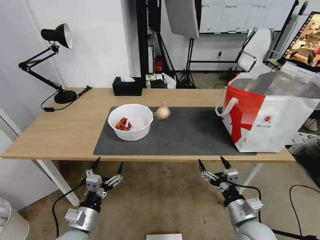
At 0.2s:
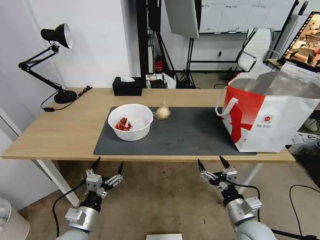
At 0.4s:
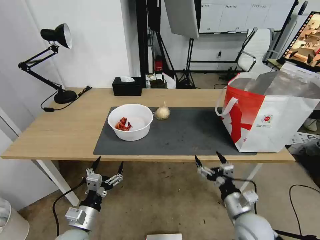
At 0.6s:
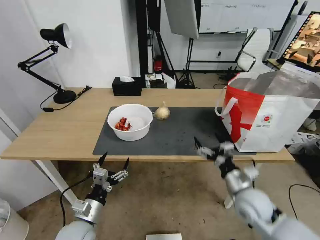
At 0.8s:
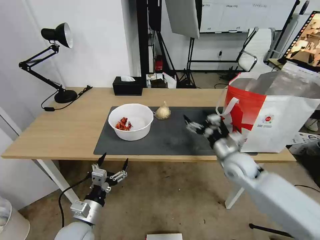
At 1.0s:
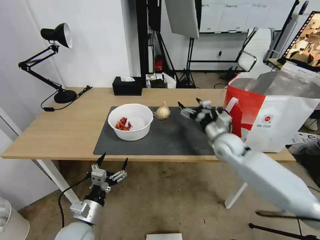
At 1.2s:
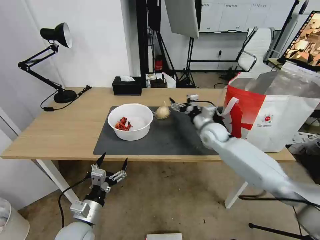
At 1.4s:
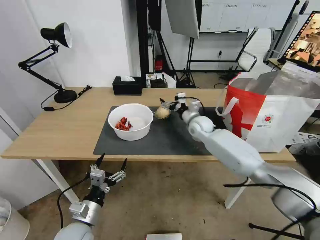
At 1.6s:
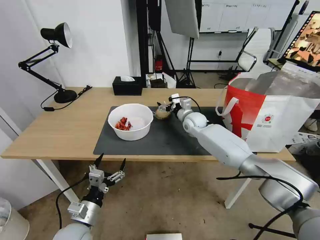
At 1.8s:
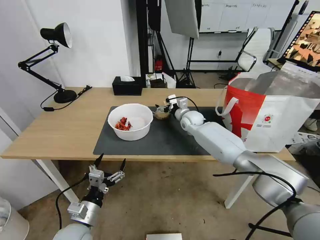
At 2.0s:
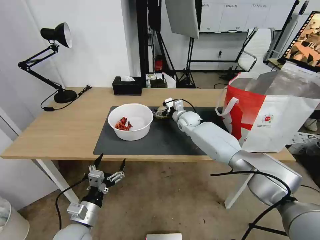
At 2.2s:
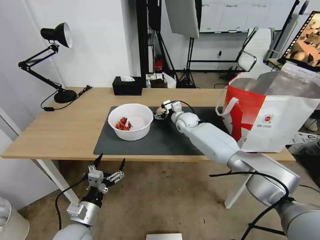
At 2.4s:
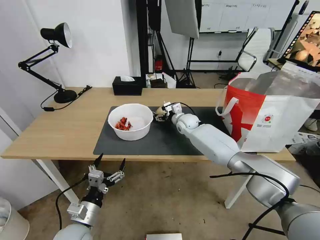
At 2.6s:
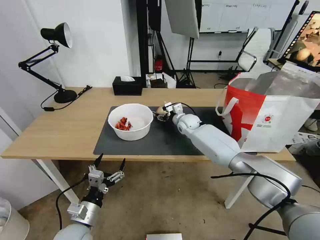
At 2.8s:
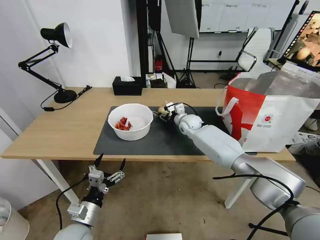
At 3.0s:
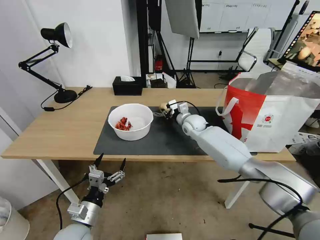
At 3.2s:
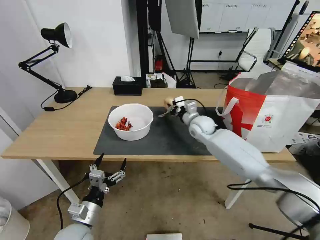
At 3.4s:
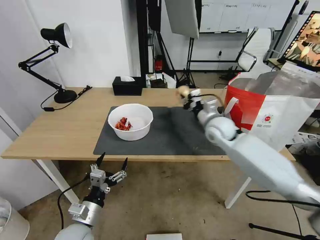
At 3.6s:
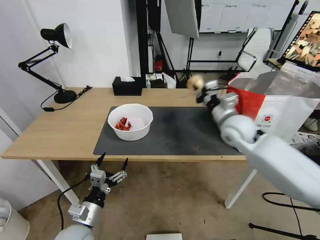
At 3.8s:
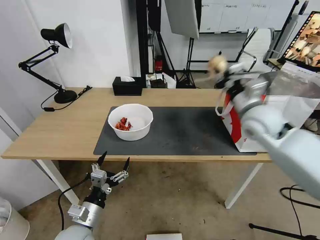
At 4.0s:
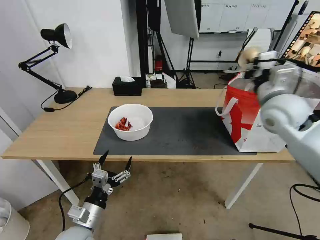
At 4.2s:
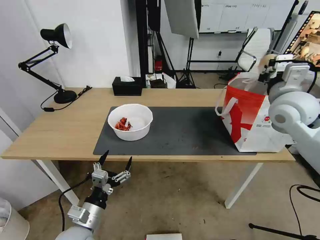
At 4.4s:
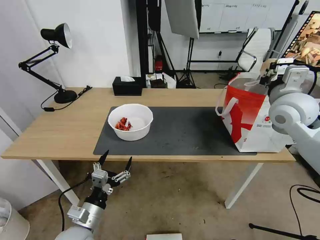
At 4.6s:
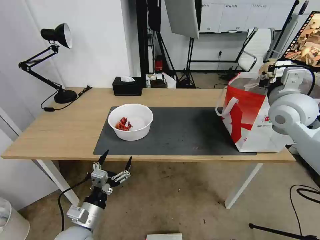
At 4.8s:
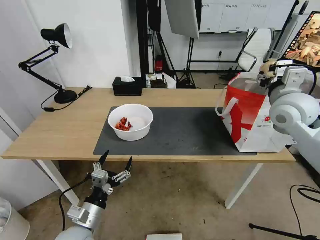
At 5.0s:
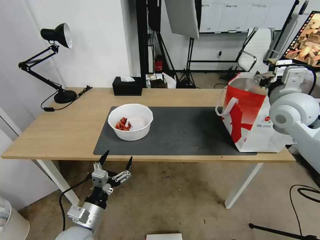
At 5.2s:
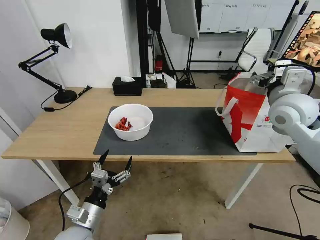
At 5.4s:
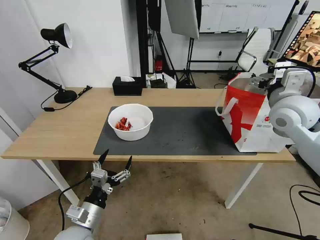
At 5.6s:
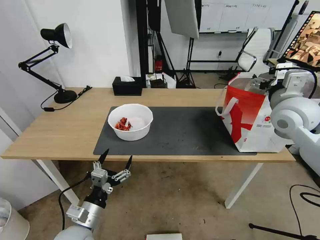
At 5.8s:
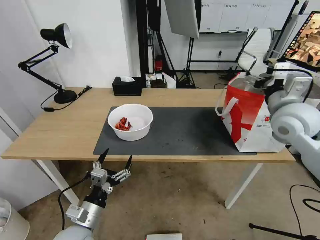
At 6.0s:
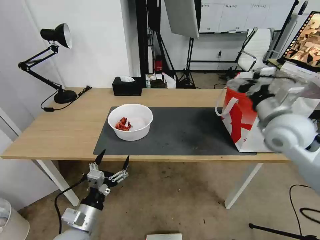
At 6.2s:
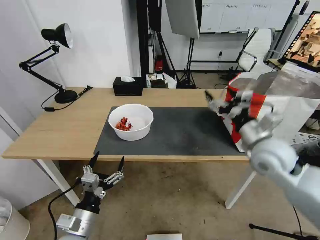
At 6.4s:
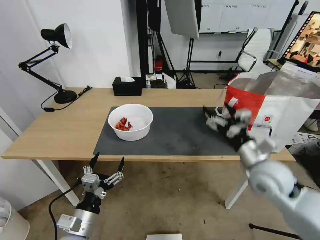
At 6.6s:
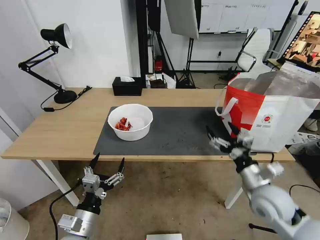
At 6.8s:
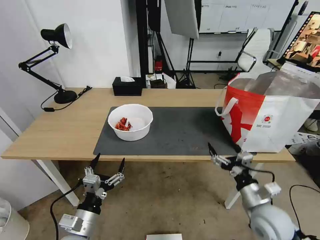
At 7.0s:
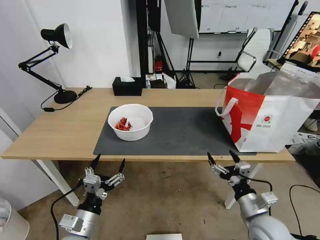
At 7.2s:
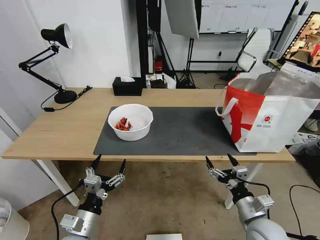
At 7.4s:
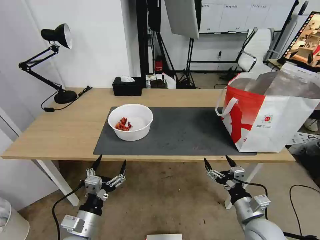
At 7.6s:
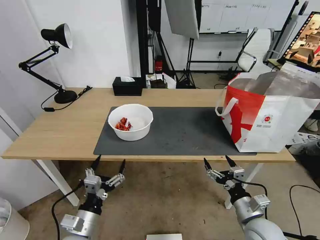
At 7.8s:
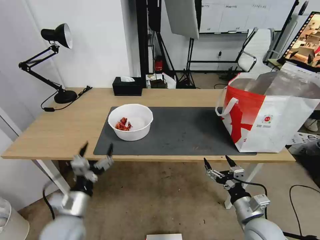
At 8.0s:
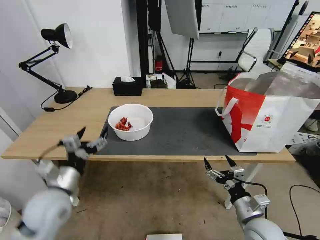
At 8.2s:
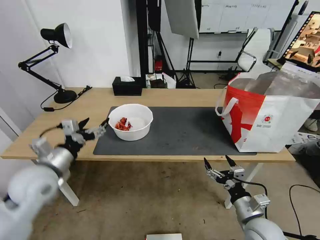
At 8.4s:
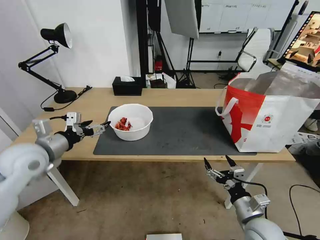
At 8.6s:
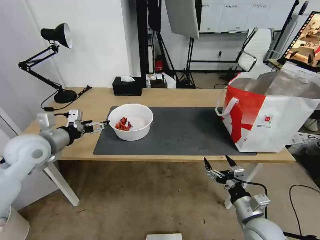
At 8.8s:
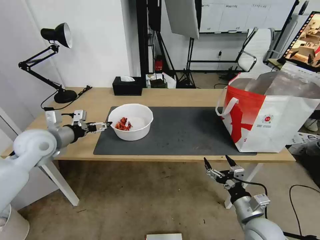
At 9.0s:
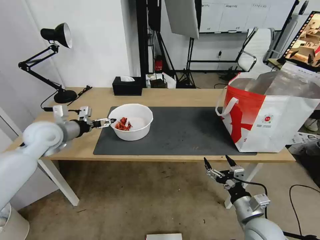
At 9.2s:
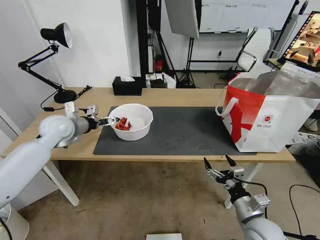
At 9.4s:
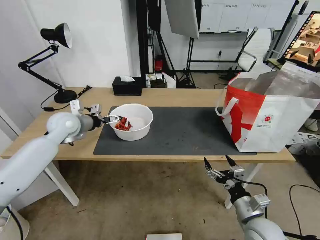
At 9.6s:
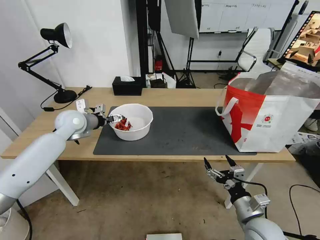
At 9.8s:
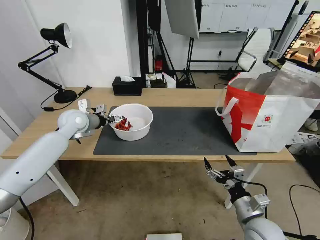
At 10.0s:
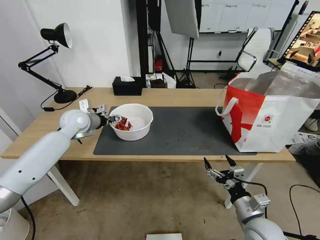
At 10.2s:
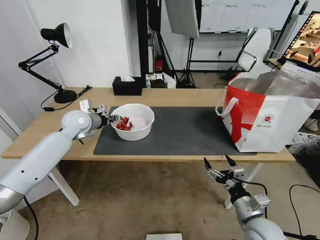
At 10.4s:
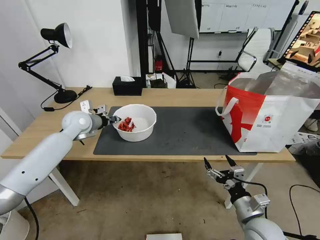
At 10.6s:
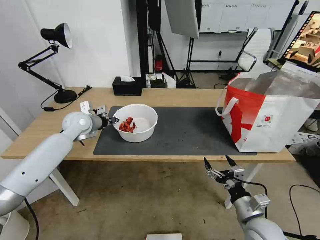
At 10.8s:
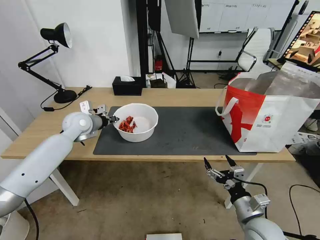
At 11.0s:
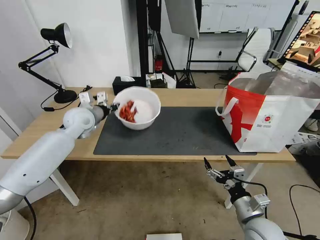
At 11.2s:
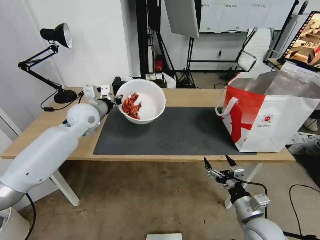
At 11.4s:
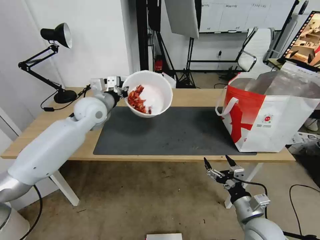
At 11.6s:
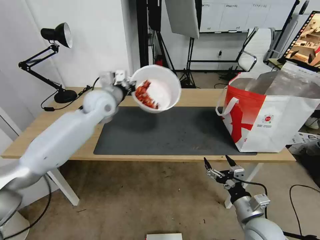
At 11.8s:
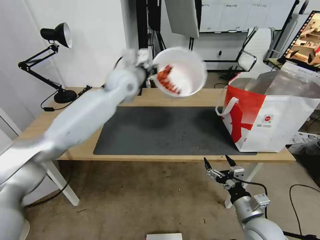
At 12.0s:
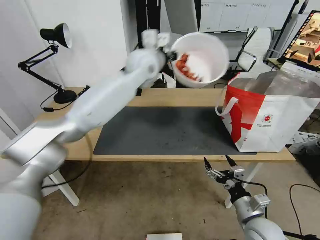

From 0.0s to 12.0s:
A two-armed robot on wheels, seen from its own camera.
Task of the whole recording: Pick up the trash from the table and place it into the takeout bag.
From 0.0s to 1.6s: The right gripper goes about 40 cm forward.
From 1.6s to 3.0s: The right gripper closes its fingers.
From 3.0s to 4.4s: The right gripper travels upward, to the right and backward by about 30 cm.
From 4.4s to 6.0s: The right gripper shifts by approximately 5 cm, and opens its fingers.
From 6.0s to 7.6s: The right gripper travels downward and backward by about 30 cm.
From 7.6s to 9.0s: The left gripper moves forward, upward and to the left, about 35 cm.
From 9.0s to 10.4s: The left gripper goes some 10 cm forward and to the right, and closes up.
From 10.4s to 12.0s: The left gripper is displaced to the right and upward by approximately 30 cm.

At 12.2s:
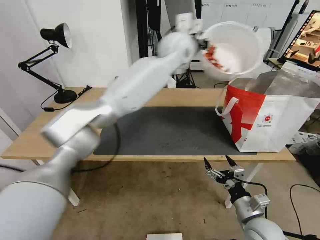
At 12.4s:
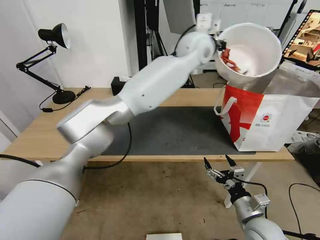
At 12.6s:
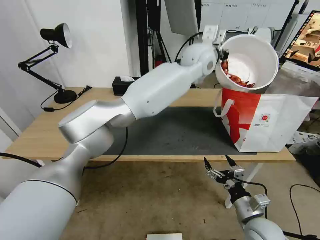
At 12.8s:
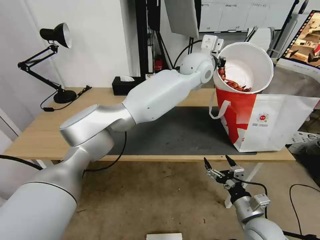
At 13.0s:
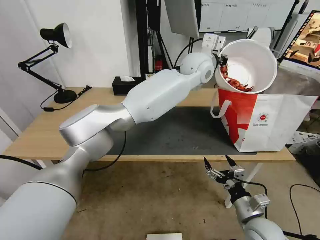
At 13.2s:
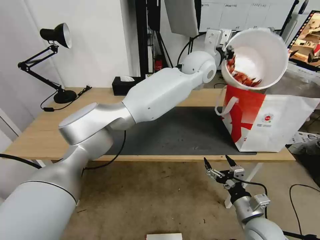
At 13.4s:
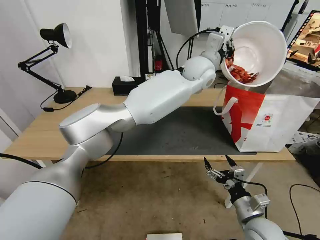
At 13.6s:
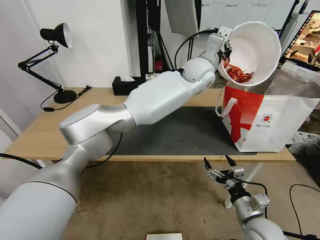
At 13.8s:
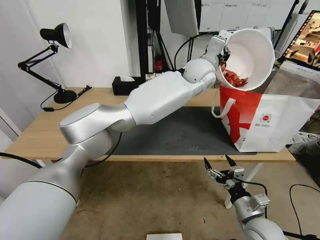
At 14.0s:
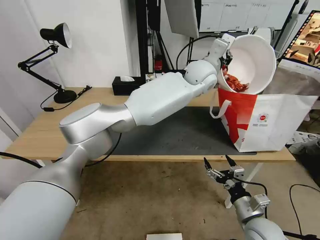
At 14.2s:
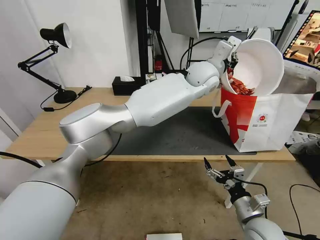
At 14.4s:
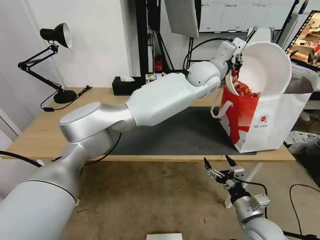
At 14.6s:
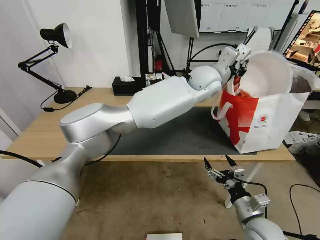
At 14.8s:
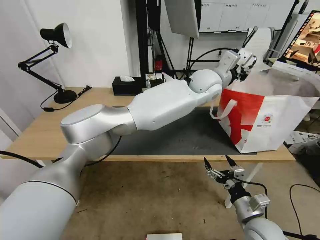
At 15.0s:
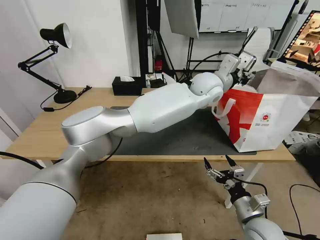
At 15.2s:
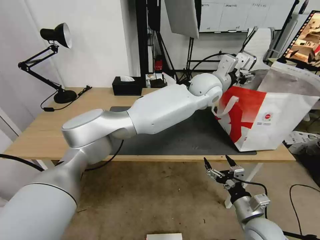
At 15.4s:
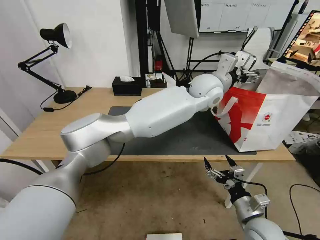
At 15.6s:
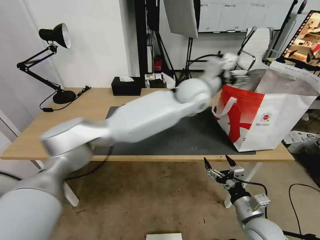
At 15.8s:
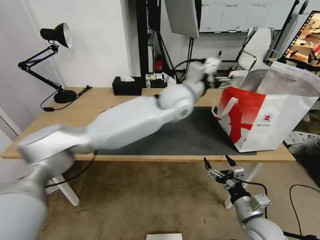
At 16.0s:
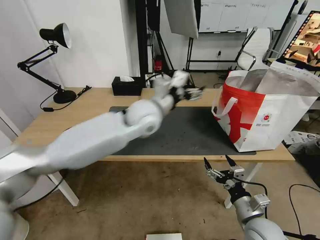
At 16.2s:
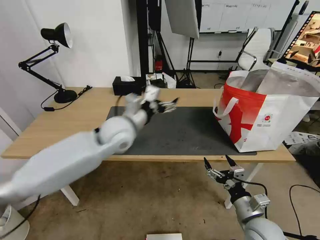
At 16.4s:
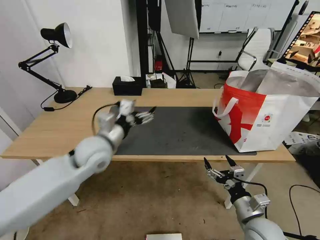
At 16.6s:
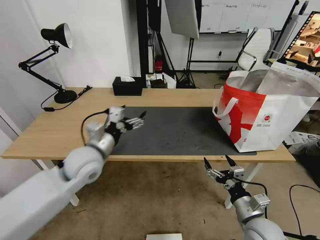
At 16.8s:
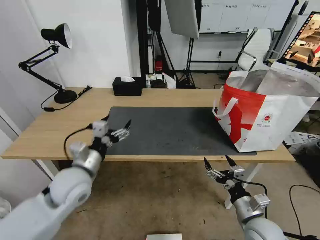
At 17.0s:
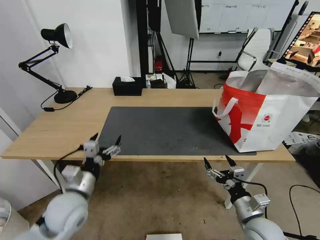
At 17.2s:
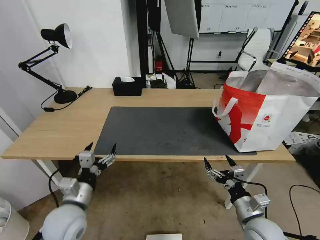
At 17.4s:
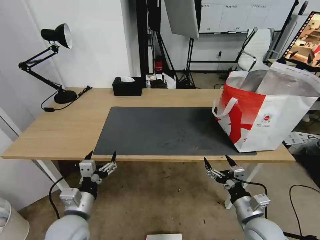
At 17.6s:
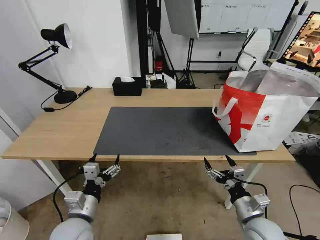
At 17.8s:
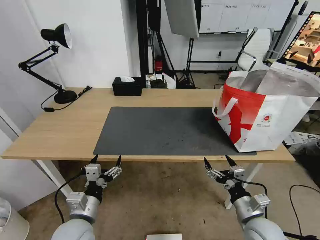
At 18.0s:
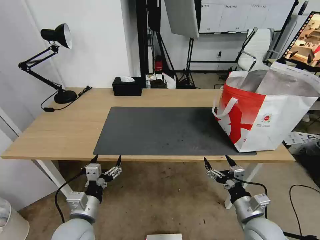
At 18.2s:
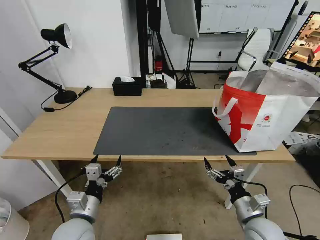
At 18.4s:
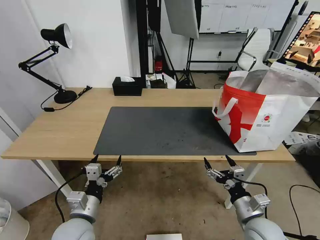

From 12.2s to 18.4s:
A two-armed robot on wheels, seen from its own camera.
Task of the whole recording: Pick up the trash from the table and place it into the takeout bag.
From 12.2s to 13.8s: The left gripper moves to the right and downward, roughly 10 cm.
From 13.8s to 15.4s: The left gripper ends up some 5 cm from where it was, and opens up.
From 15.4s to 16.8s: The left gripper moves to the left, backward and downward, roughly 50 cm.
From 16.8s to 18.4s: The left gripper is displaced backward and downward by about 15 cm.

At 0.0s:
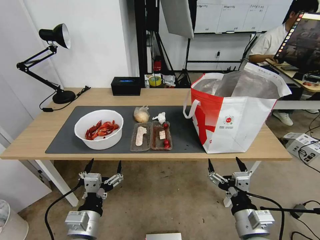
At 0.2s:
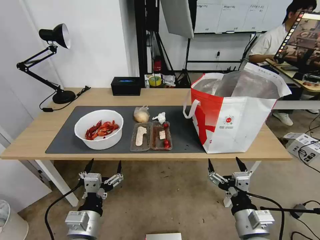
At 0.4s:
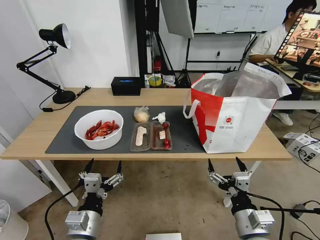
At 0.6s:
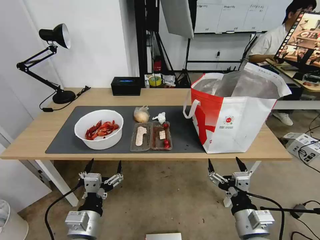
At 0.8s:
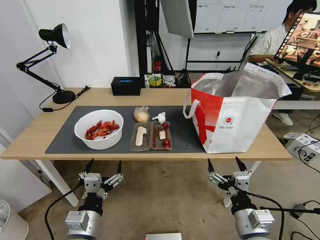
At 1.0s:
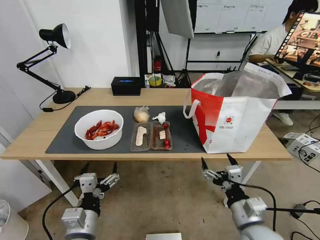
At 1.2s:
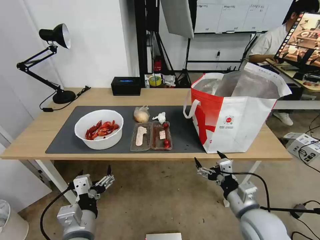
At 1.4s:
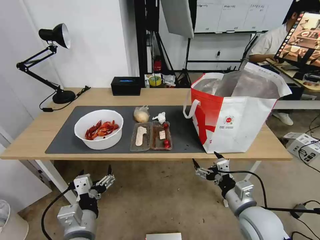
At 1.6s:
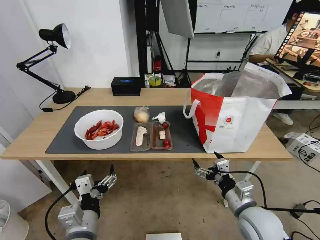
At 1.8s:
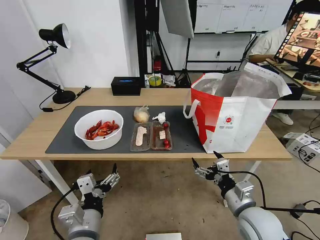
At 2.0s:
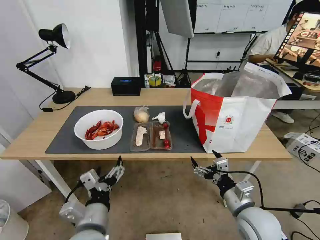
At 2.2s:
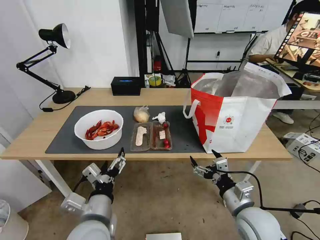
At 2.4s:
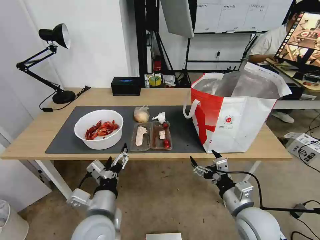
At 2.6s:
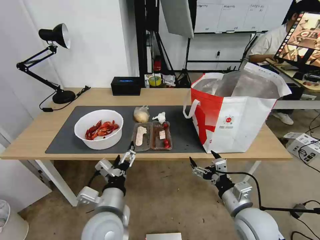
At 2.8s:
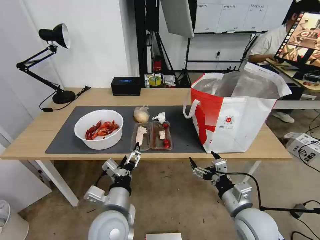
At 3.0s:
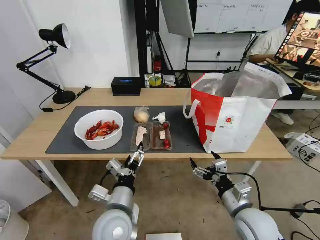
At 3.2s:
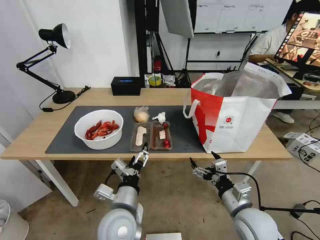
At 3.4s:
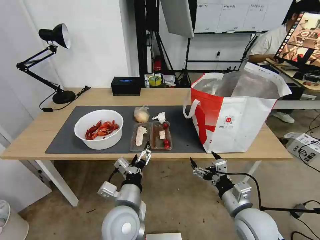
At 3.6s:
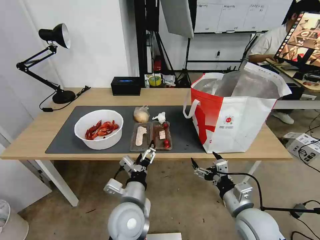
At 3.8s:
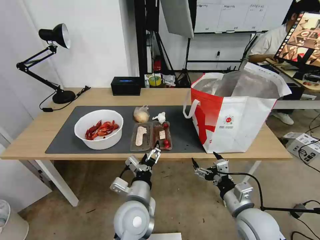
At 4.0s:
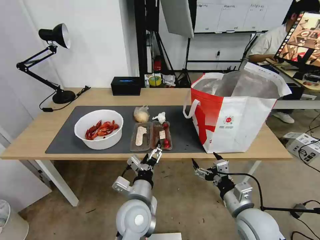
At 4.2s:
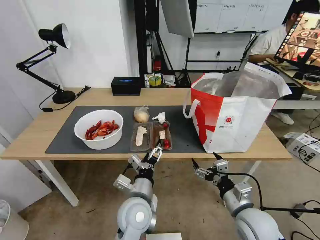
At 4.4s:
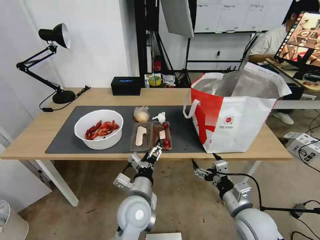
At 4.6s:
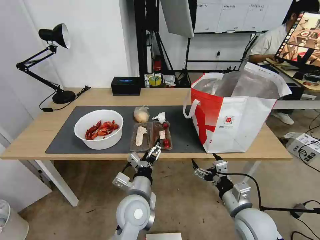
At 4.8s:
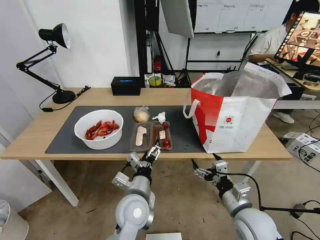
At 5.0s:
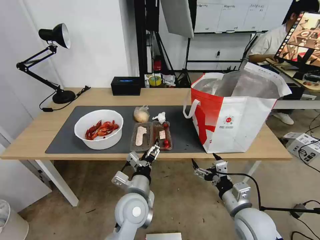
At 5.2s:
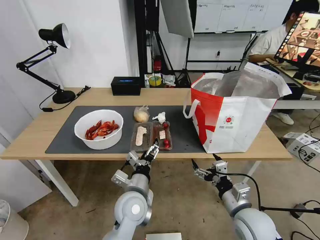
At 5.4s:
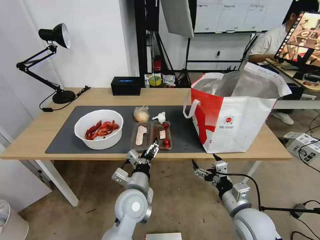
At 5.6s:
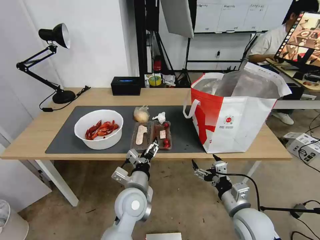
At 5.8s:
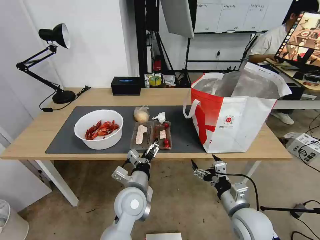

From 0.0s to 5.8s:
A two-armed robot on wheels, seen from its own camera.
Task of the whole recording: Pick up the trash from the table and place it into the takeout bag.
From 1.4s to 2.8s: The left gripper travels to the right and forward by roughly 10 cm.
From 2.8s to 4.4s: The left gripper heads to the right, covering roughly 5 cm.
From 4.4s to 5.8s: The grippers move only a little.
